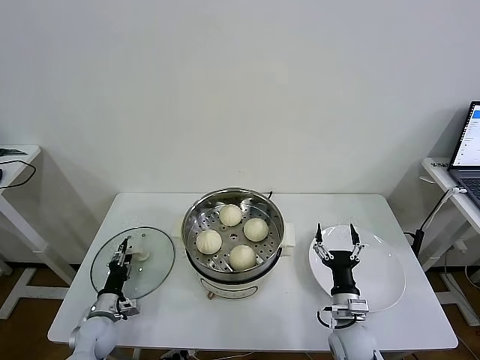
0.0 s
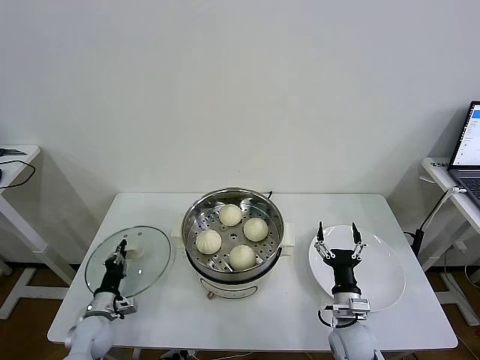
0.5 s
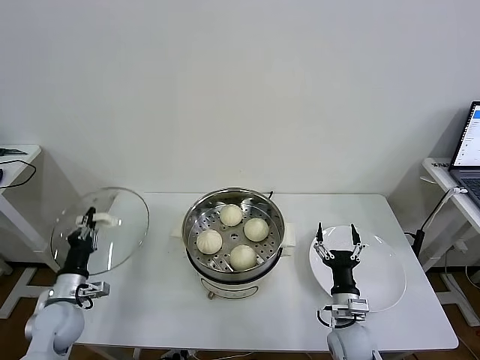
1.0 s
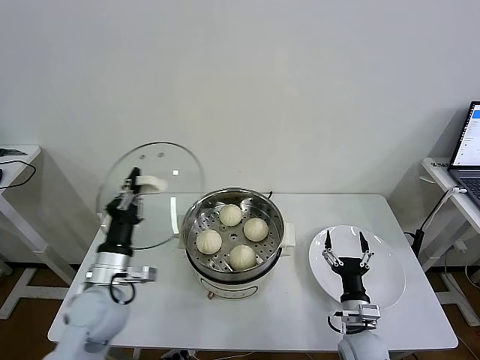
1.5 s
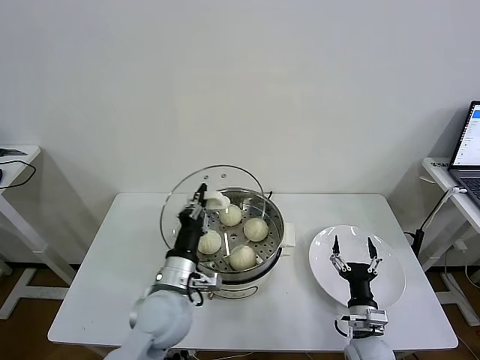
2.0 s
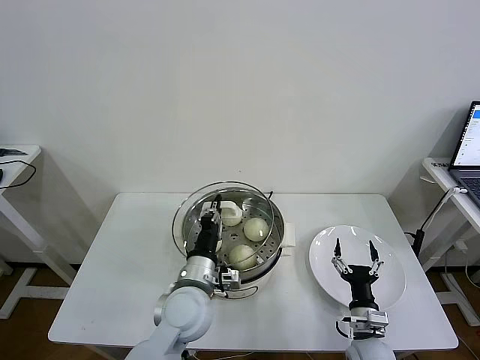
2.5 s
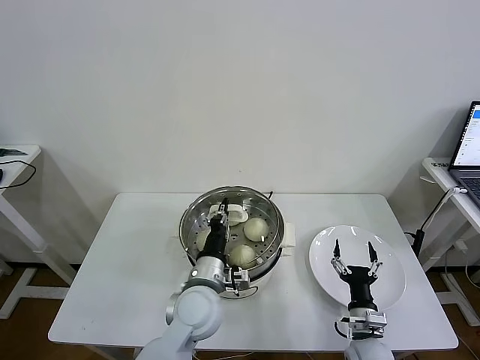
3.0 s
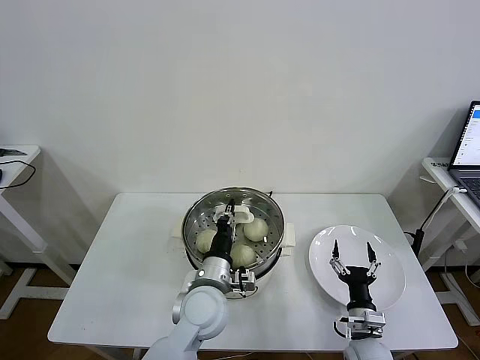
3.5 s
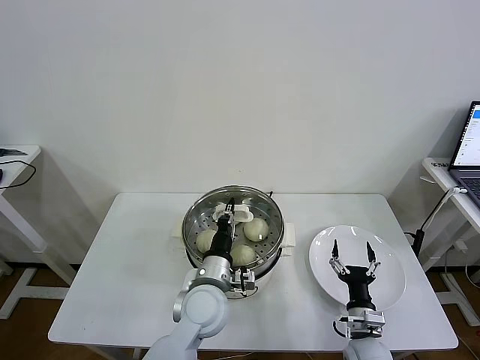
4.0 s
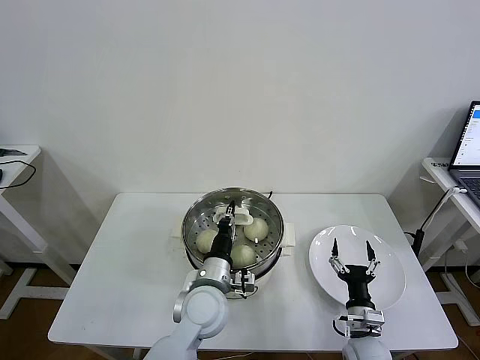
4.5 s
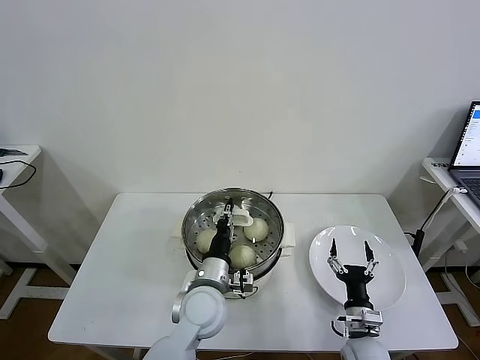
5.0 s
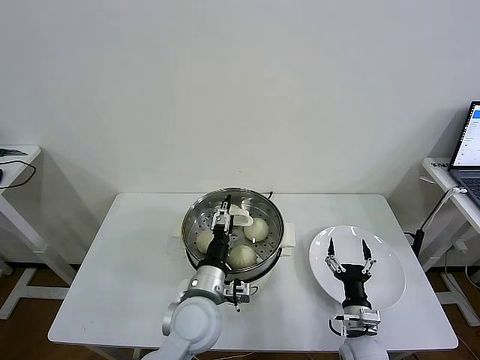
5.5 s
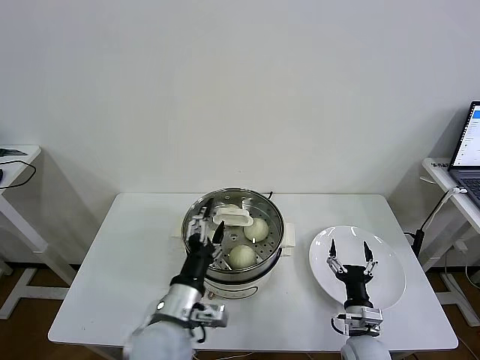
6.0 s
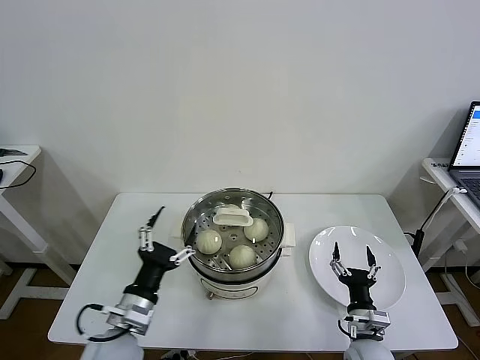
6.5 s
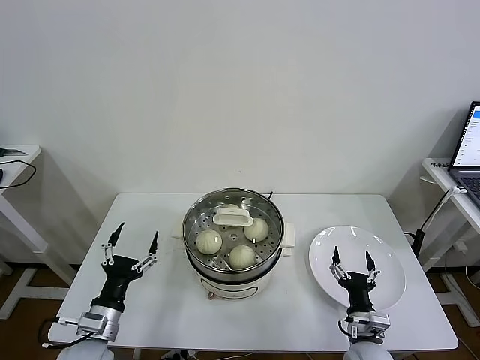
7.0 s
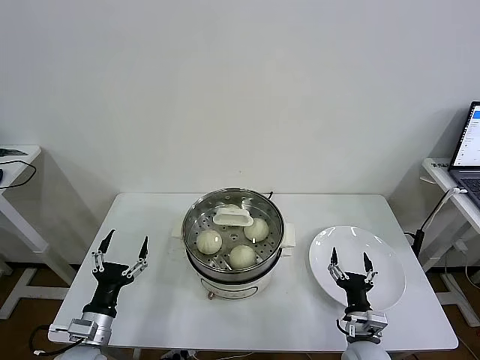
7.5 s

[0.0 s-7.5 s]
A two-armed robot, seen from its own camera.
Task of the whole recording: take steamed baozi put them in steamer then cover it.
Step, 0.5 to 5.0 s: Place the pot lid on the steamer with left gripper.
0.0 to 2.0 s: The left gripper travels upward and to the right by roughly 30 cm, and closes its fingers.
2.0 to 4.0 s: The left gripper travels to the right by some 10 cm.
4.0 to 5.5 s: The left gripper opens.
5.5 to 7.5 s: The left gripper goes approximately 25 cm to the left.
